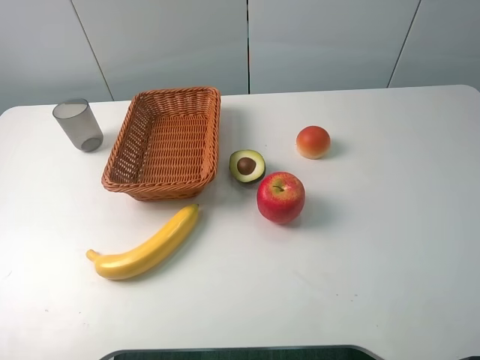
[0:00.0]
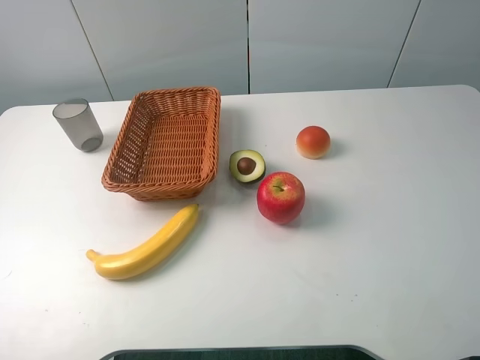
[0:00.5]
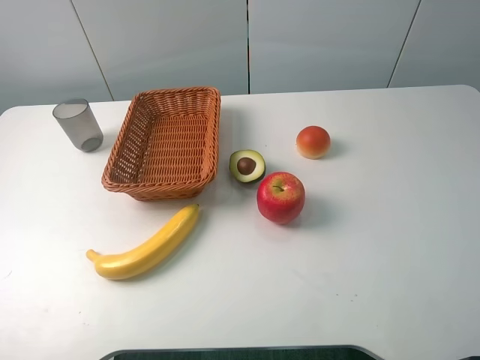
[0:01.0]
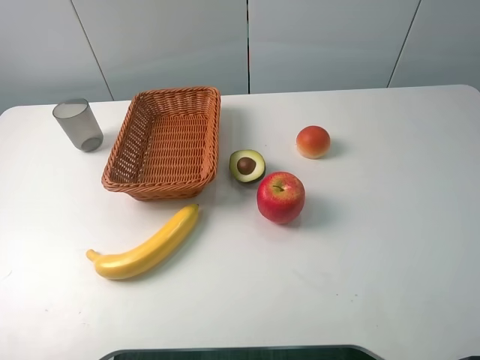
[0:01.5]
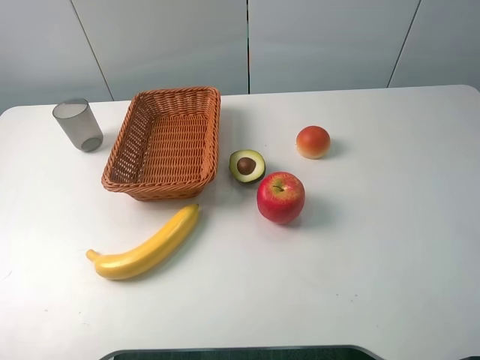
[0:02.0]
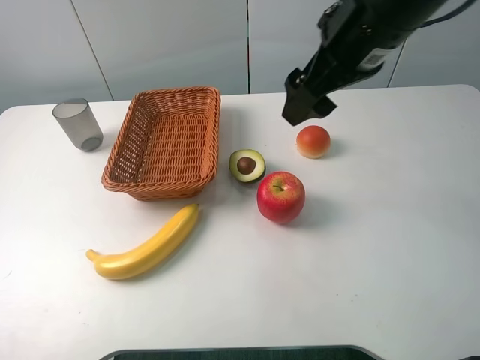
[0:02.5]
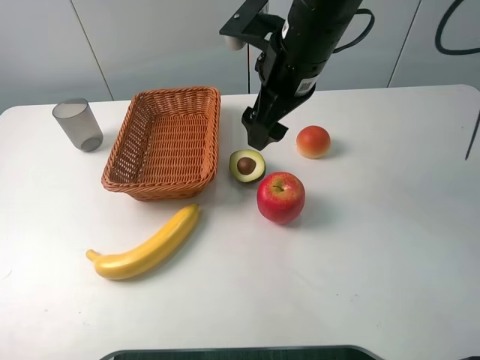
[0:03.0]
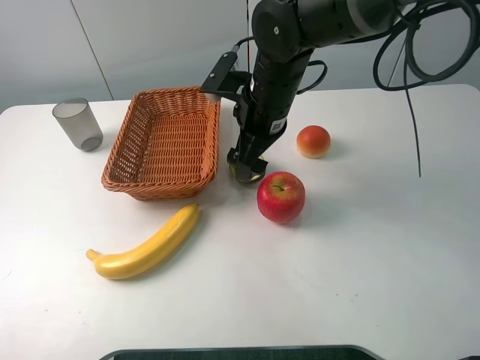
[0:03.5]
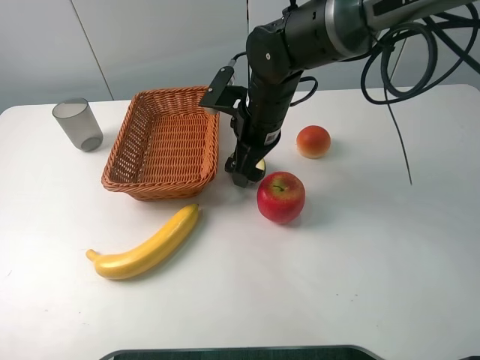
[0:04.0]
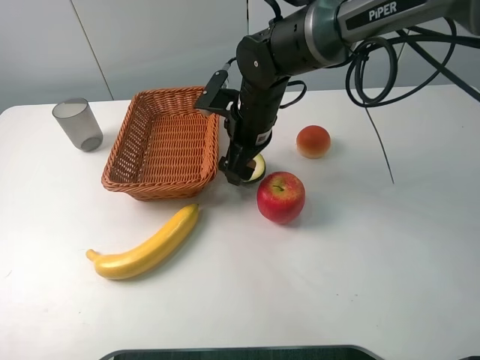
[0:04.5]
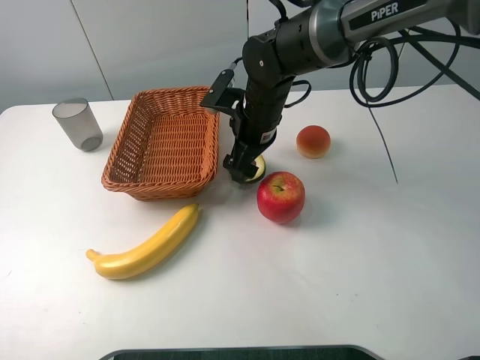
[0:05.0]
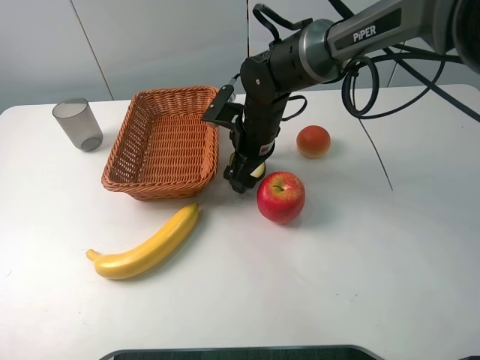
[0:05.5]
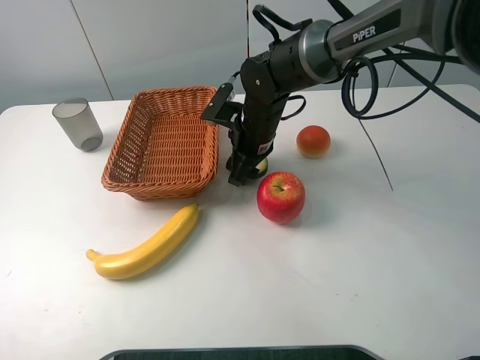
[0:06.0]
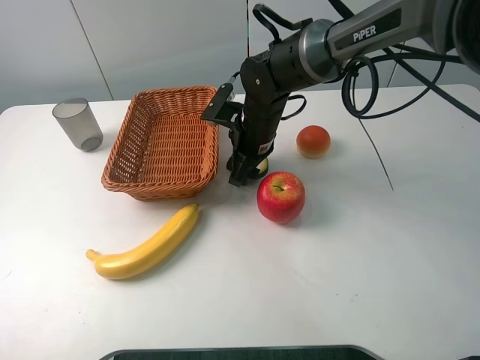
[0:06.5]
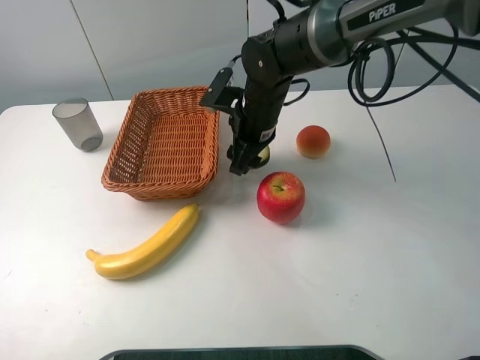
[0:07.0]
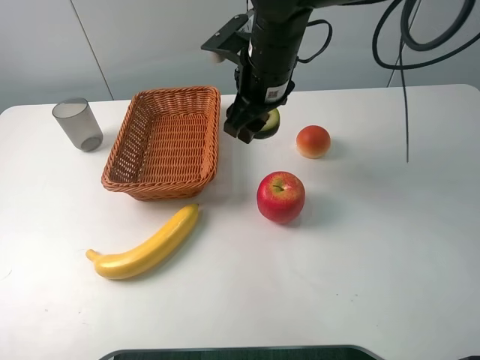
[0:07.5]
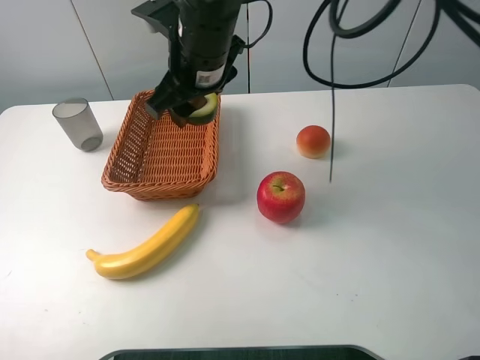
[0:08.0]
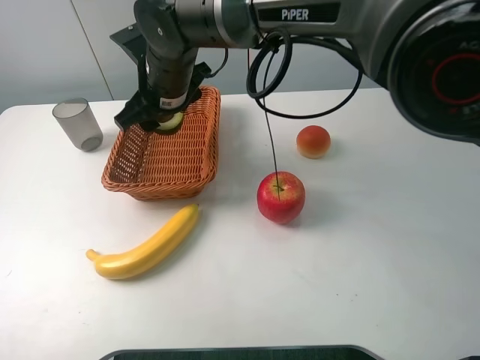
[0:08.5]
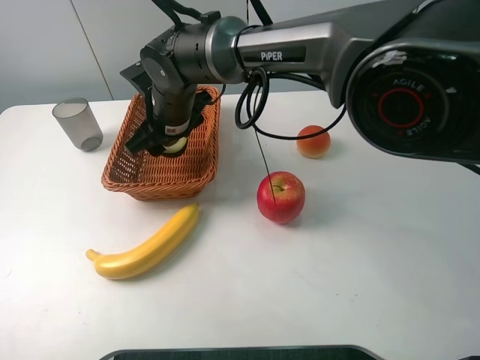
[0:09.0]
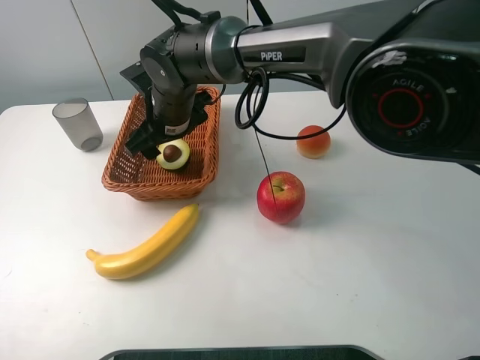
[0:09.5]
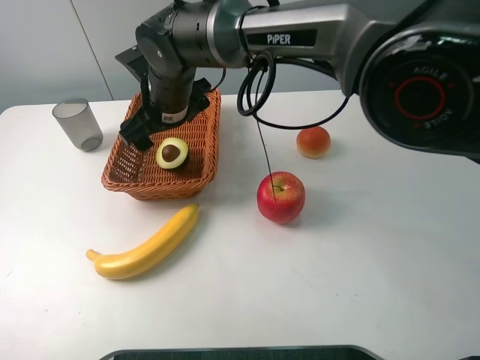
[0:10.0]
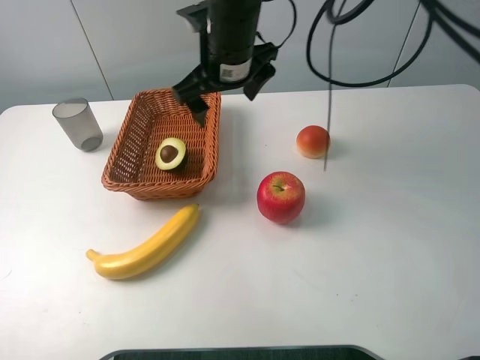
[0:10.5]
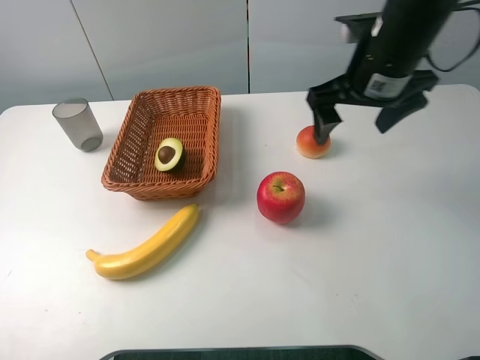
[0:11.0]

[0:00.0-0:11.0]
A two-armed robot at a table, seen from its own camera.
0:02.0 to 0:03.5: The right gripper travels to the left, forward and downward by approximately 35 cm.
0:03.5 to 0:05.5: The right gripper heads downward, covering roughly 5 cm.
0:05.5 to 0:07.5: The right gripper heads upward, covering some 10 cm, and closes.
0:07.5 to 0:09.0: The right gripper heads to the left and downward, covering roughly 15 cm.
0:09.0 to 0:11.0: The right gripper is displaced to the right by about 30 cm, and opens its fingers.

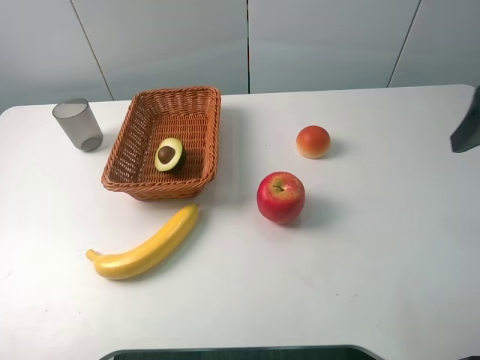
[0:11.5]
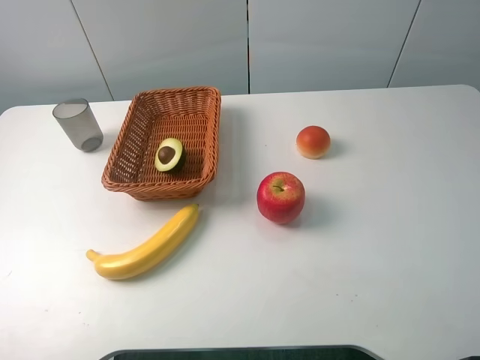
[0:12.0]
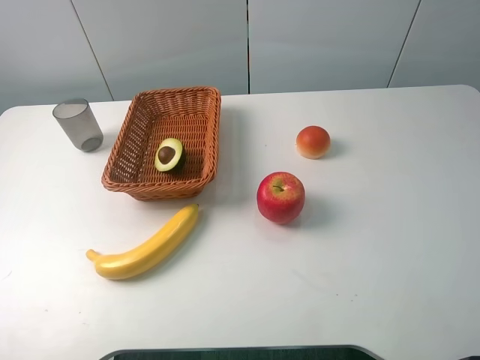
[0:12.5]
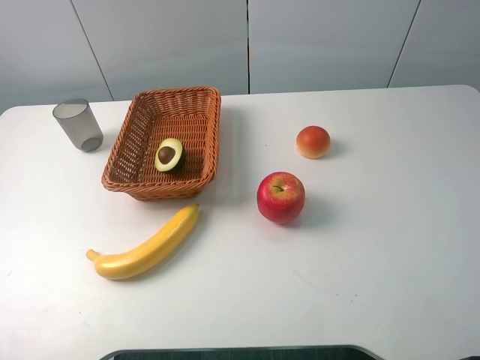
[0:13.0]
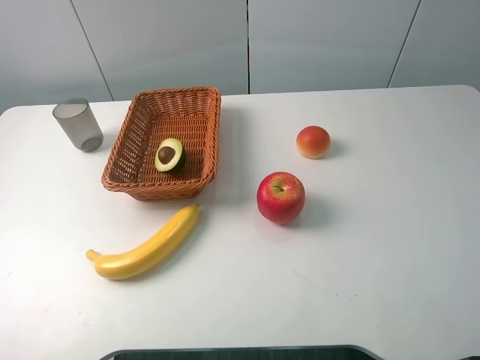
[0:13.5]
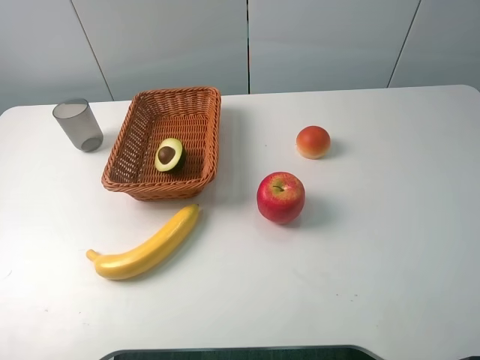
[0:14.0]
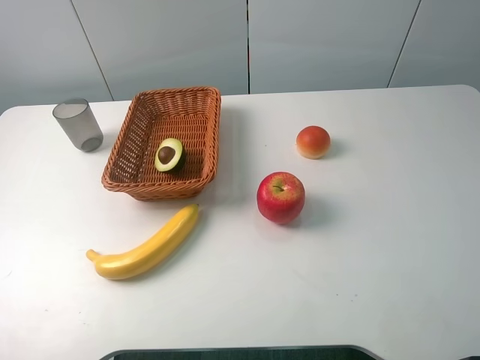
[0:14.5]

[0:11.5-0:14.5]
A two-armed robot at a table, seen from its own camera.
0:11.5 to 0:13.0: The right gripper goes about 20 cm backward.
0:13.0 to 0:14.5: Both grippers stay put.
